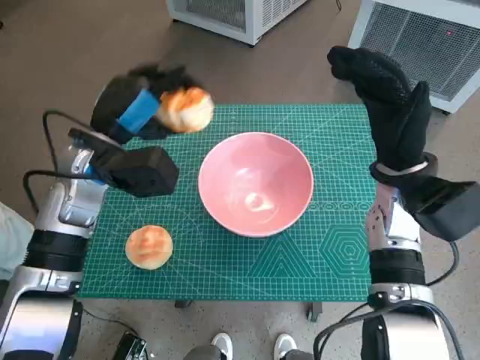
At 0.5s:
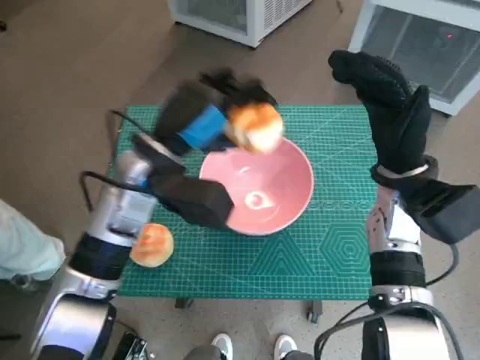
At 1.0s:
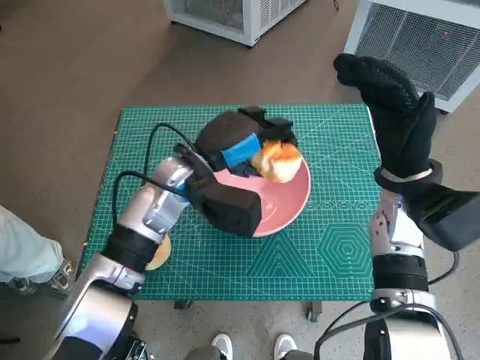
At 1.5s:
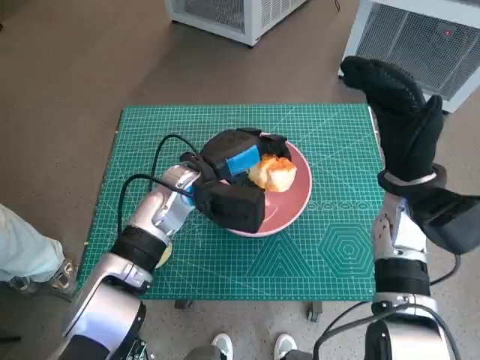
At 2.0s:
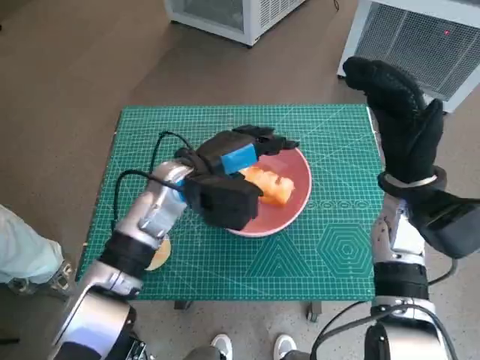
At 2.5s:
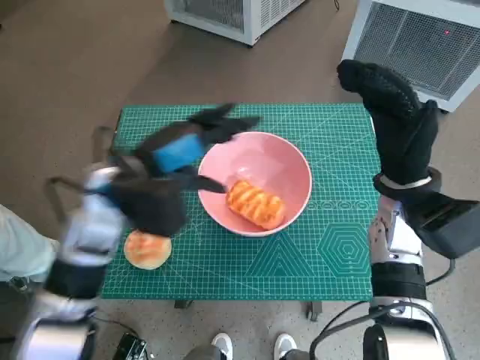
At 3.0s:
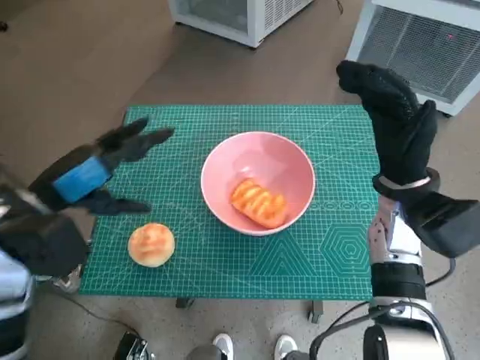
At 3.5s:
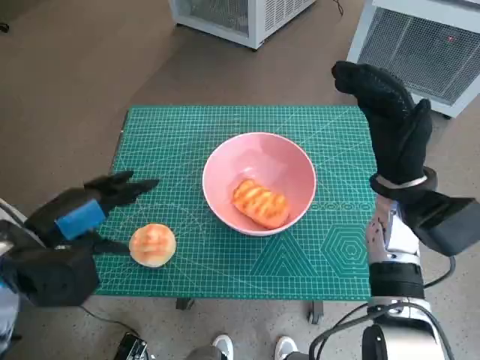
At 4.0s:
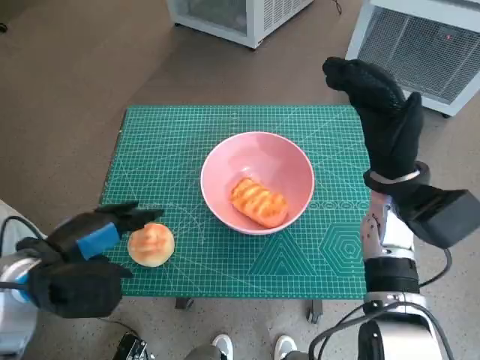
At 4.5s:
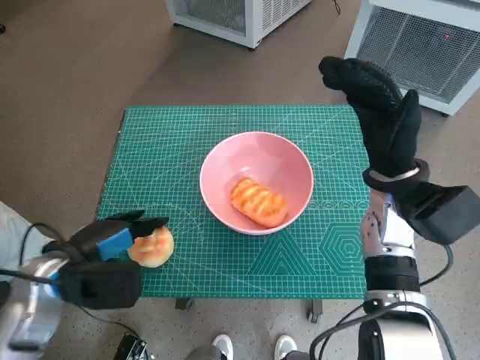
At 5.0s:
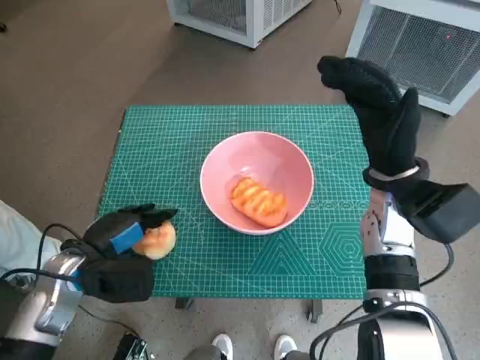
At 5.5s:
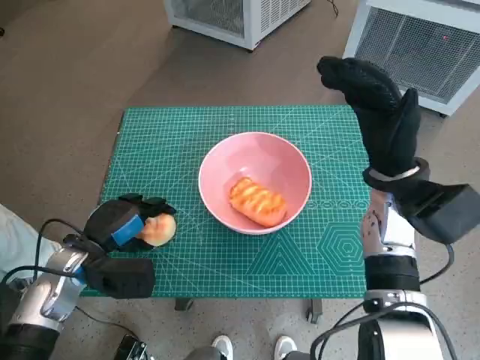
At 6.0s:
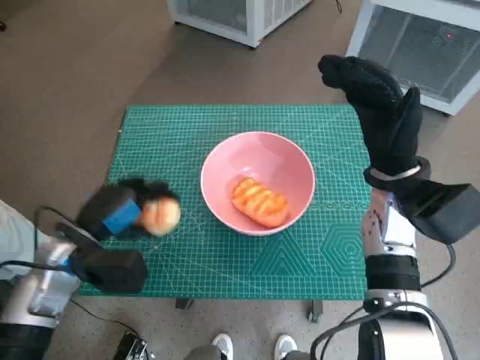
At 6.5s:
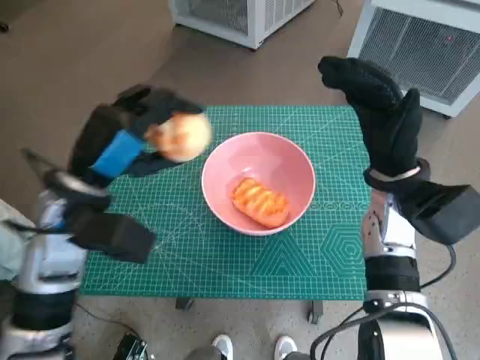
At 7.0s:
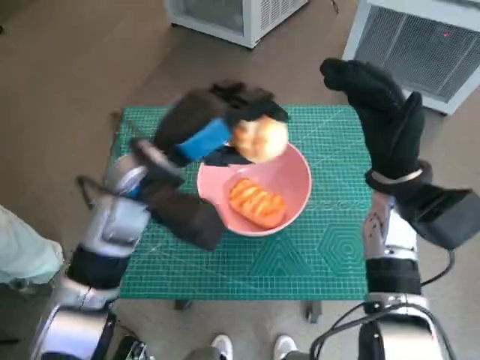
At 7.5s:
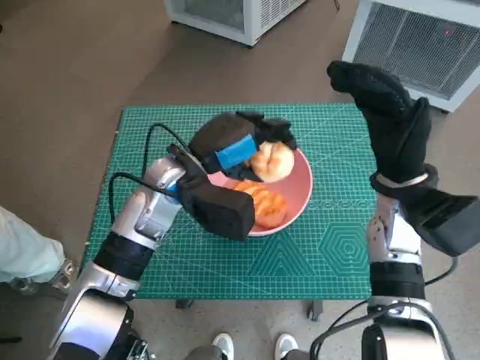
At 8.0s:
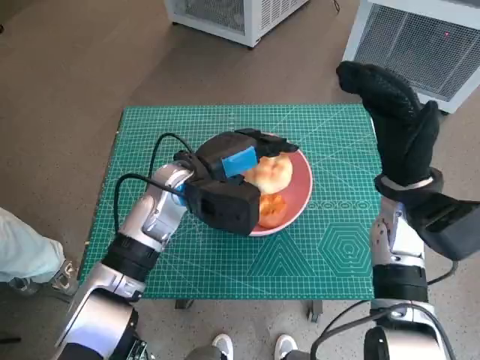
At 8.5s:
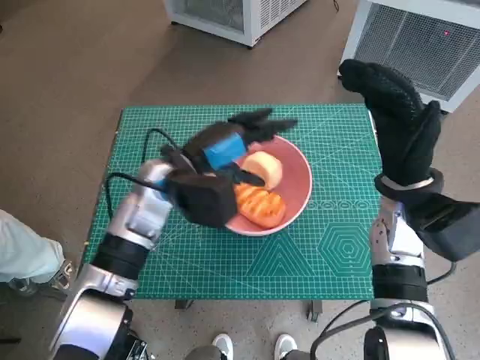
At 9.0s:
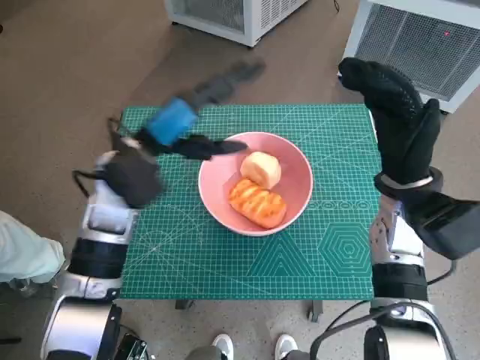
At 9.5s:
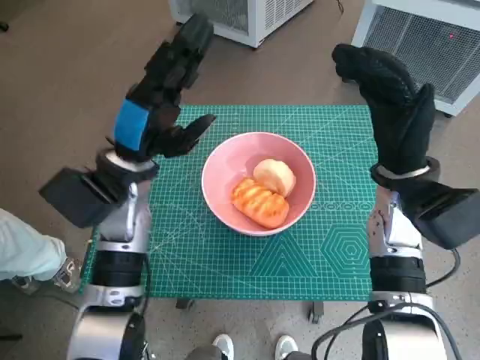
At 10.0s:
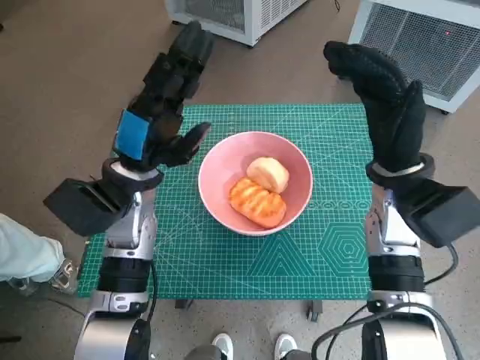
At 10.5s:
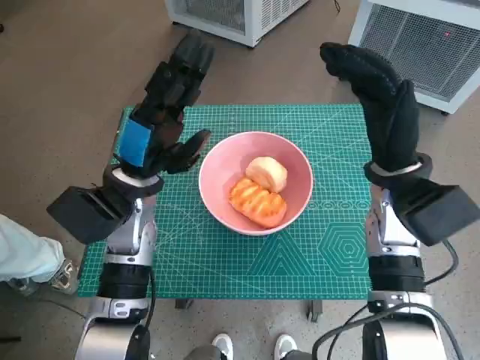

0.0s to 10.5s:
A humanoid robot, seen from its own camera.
Task of the whole recording: Push the bowl into the center of the table and put the bread into the bowl.
Step, 0.0s to 2.0s: Place the long bread in pink bowl with left hand.
Step, 2.5s to 4.5s: Grasp the round bread with left hand.
Step, 5.0s to 8.5s: Place the round bread in pink bowl with left hand.
0.0s to 2.0s: The left hand heads to the right, covering roughly 10 cm.
2.0s to 4.0s: The left hand is displaced to the left and backward by roughly 20 cm.
4.0s to 6.5s: The left hand heads forward and to the right, covering approximately 10 cm, and reaches about 10 cm downward, then returns.
6.5s to 8.5s: The left hand is displaced to the right and forward by approximately 10 cm.
8.5s to 10.5s: The left hand moves some 5 cm.

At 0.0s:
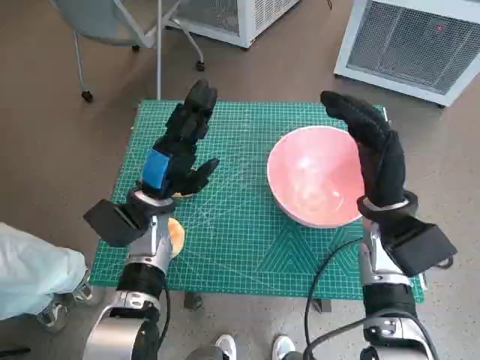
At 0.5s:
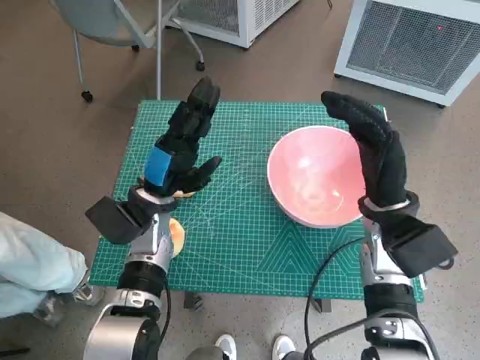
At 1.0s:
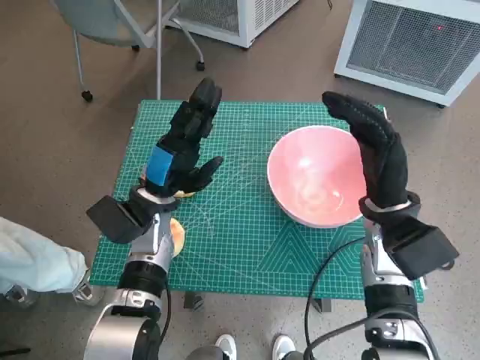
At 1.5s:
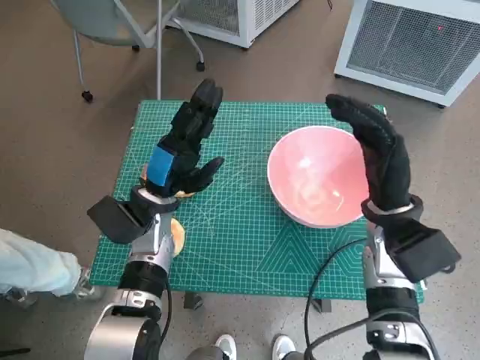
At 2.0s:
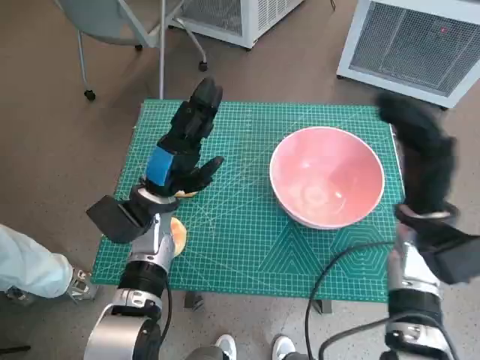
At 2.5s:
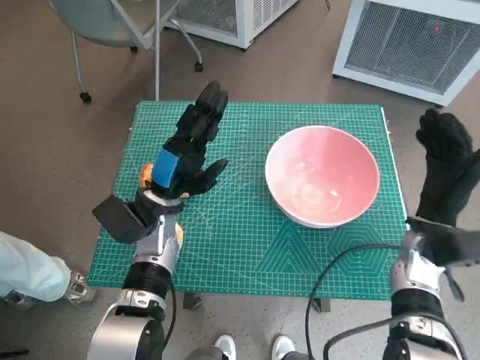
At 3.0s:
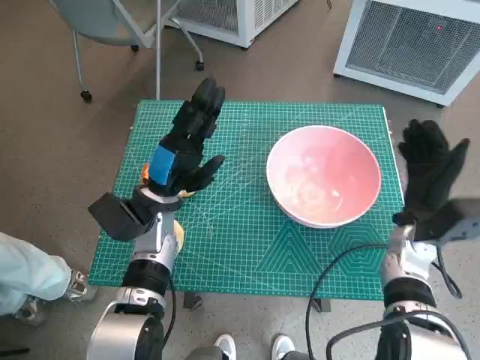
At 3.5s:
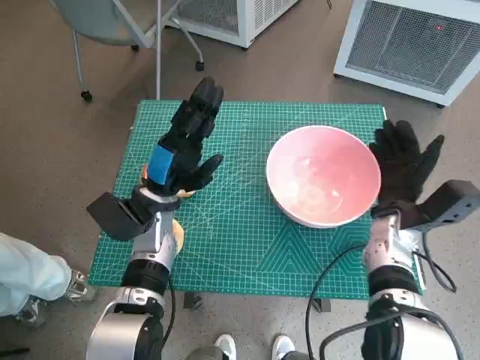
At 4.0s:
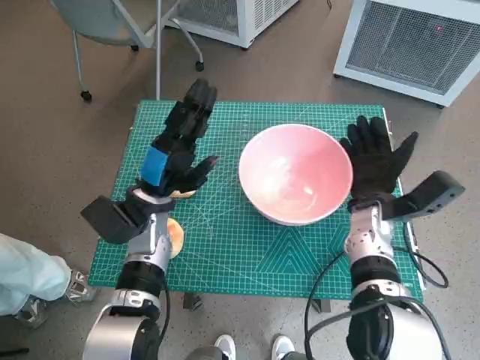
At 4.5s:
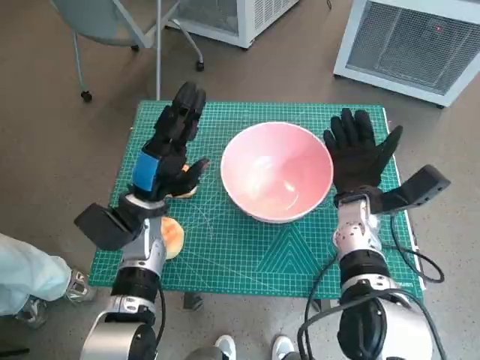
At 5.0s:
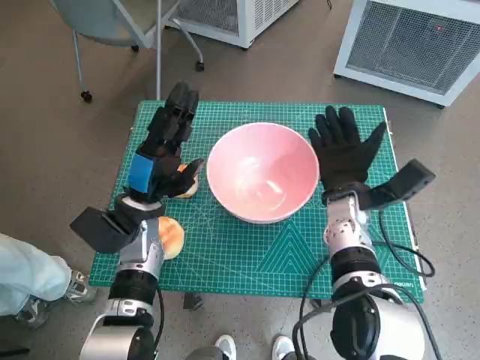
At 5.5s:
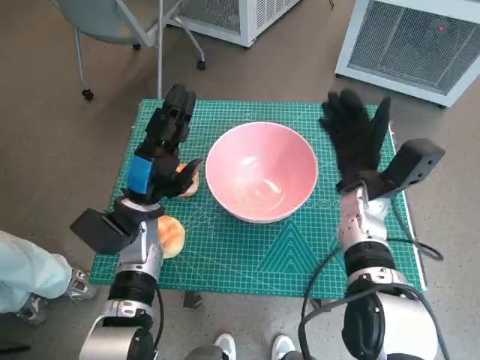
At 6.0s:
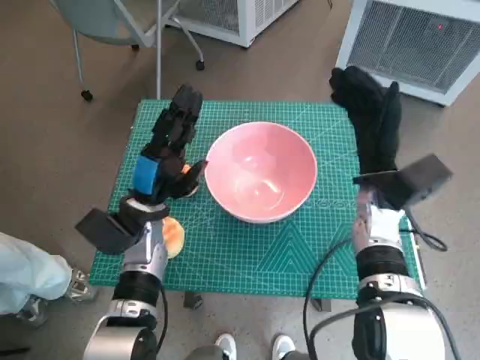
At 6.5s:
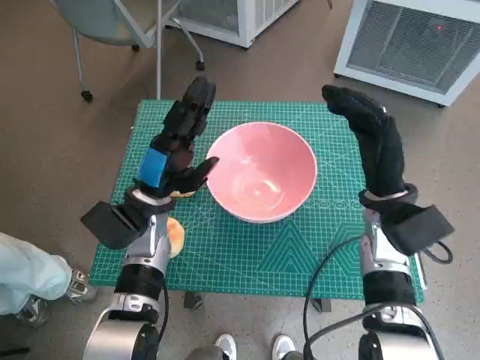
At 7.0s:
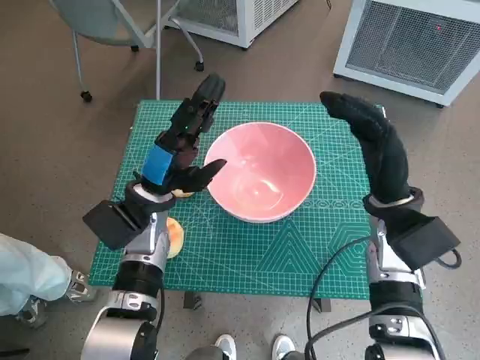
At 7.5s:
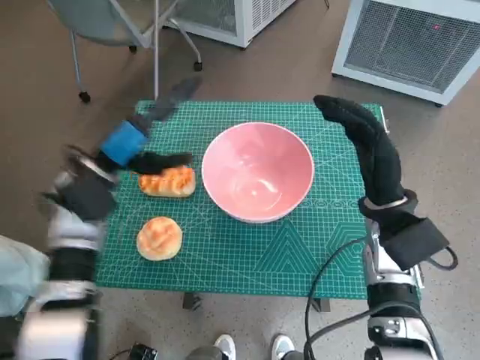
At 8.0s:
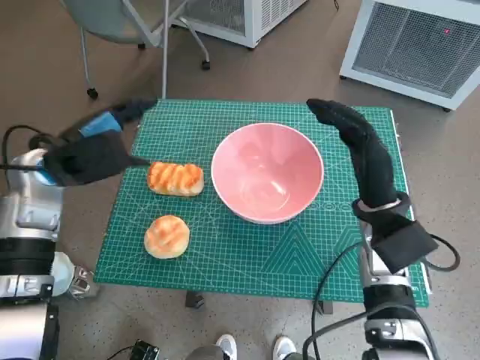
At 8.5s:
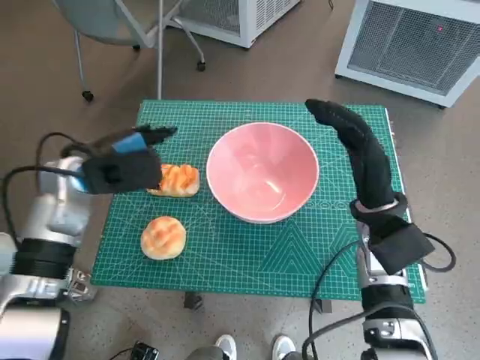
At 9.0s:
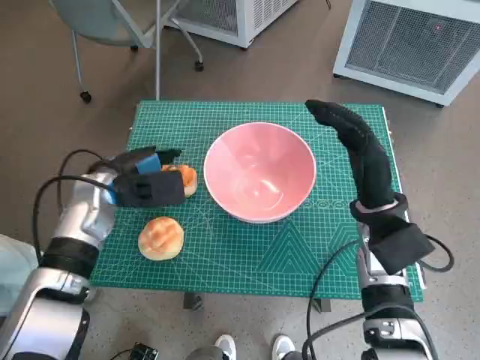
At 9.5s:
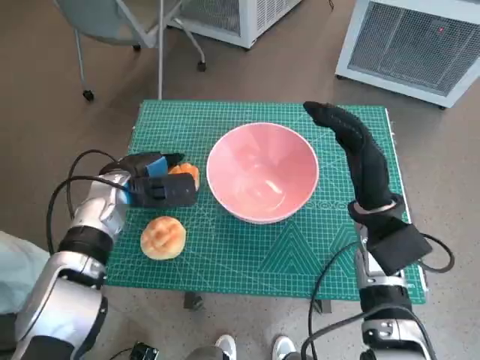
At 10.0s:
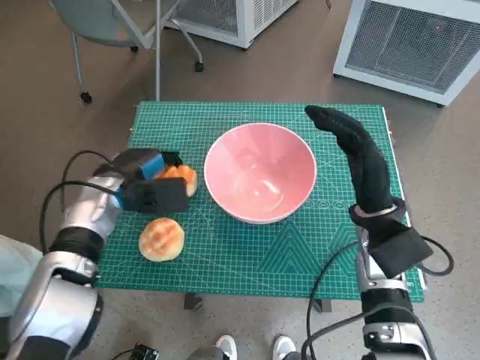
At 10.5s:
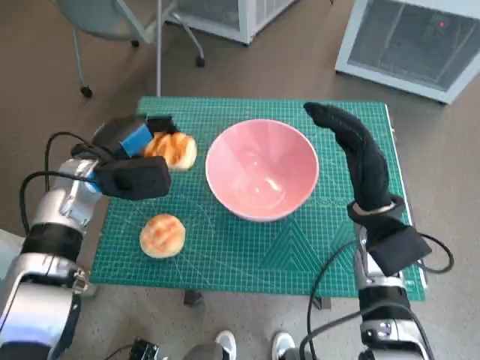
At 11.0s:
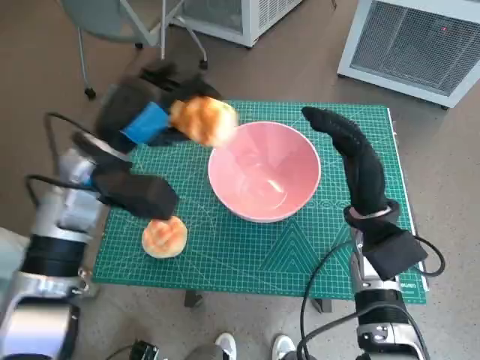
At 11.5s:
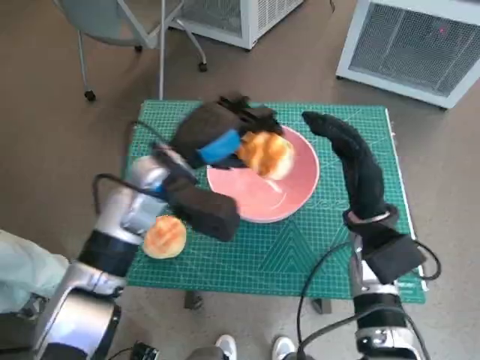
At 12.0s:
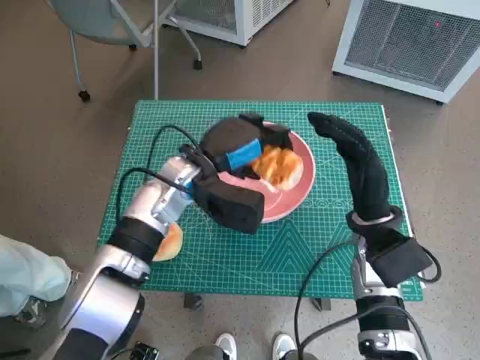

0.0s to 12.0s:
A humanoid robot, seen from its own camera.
Task of the whole recording: Push the bowl into the center of the table and put the bread into the bowl.
Step, 0.0s to 5.0s: Move the pink bowl to the center of table with right hand.
Step, 5.5s to 9.5s: Grasp the long bread with left hand.
2.0s to 4.0s: The right hand heads downward, covering some 5 cm.
4.0s to 6.0s: The right hand travels upward by about 5 cm.
6.0s to 8.0s: The left hand shifts roughly 15 cm upward and to the left.
8.0s to 10.0s: The left hand travels downward by about 10 cm.
10.0s to 12.0s: The left hand travels to the right by about 10 cm.

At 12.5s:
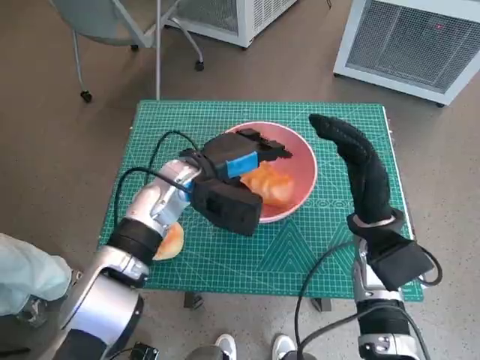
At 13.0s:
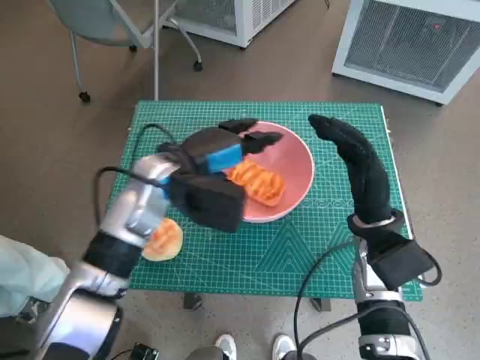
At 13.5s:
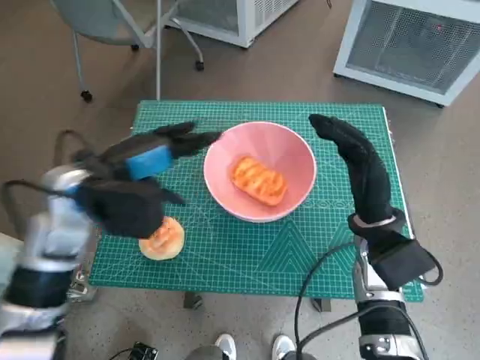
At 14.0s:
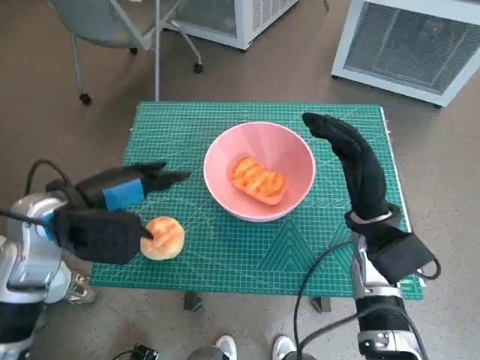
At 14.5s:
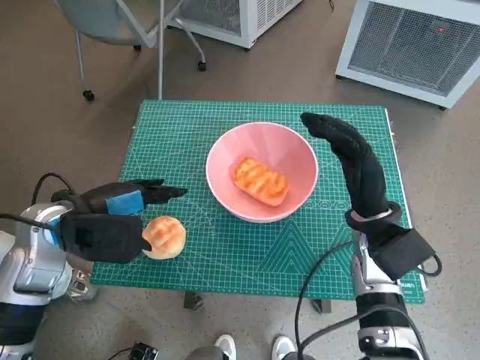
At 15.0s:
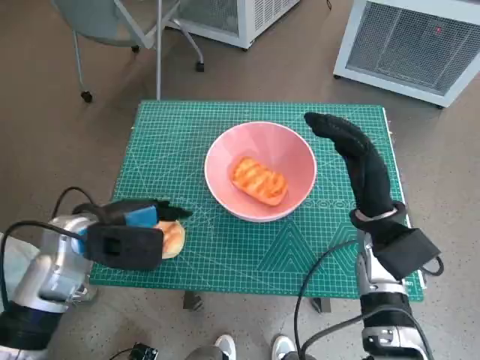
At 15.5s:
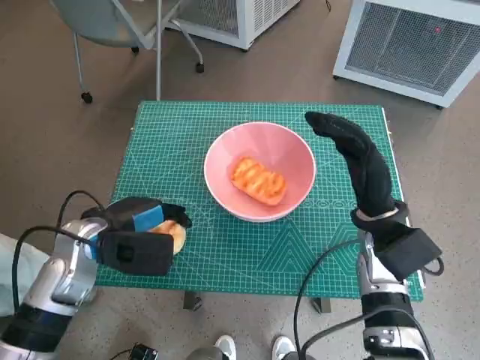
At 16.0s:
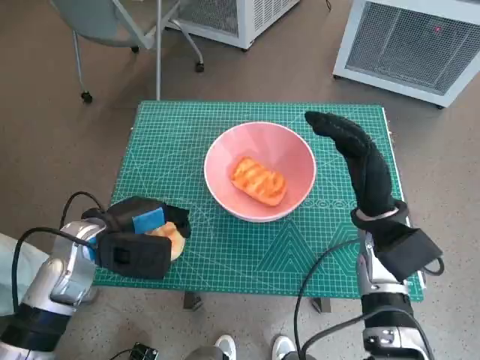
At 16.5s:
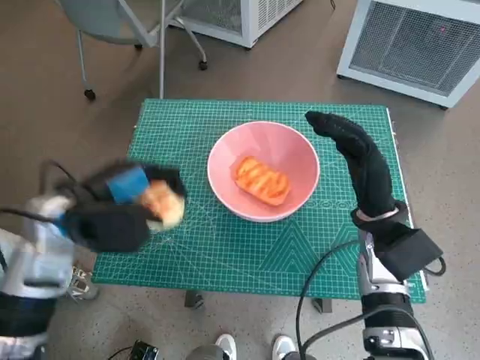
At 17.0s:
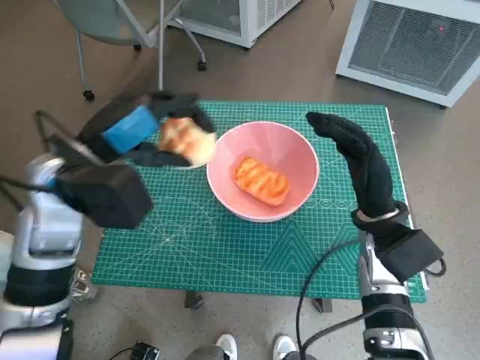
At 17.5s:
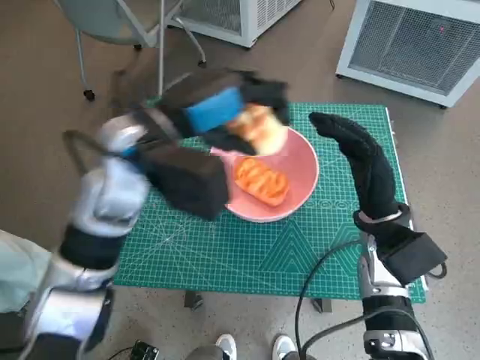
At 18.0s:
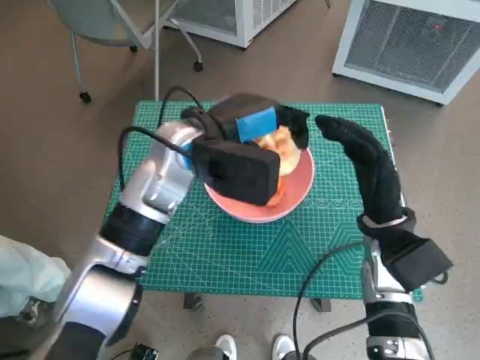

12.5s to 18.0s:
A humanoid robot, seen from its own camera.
Task of the whole recording: Push the bowl into the center of the table and put the bread into the bowl.
Step, 13.0s to 15.0s: Grasp the round bread with left hand.
12.5s to 14.5s: The left hand travels to the left and backward by some 15 cm.
14.5s to 16.0s: The hands stay close to where they were, moving slightly.
16.0s to 18.0s: The left hand heads to the right, upward and forward, covering some 20 cm.
